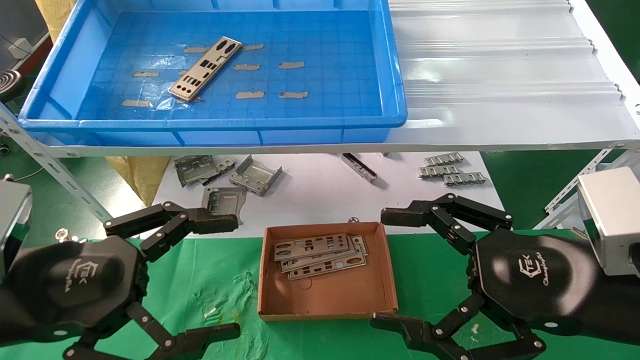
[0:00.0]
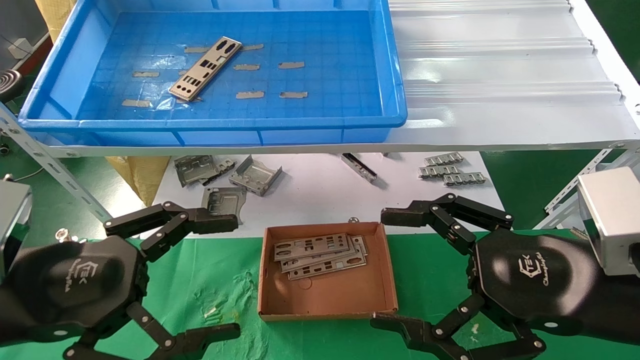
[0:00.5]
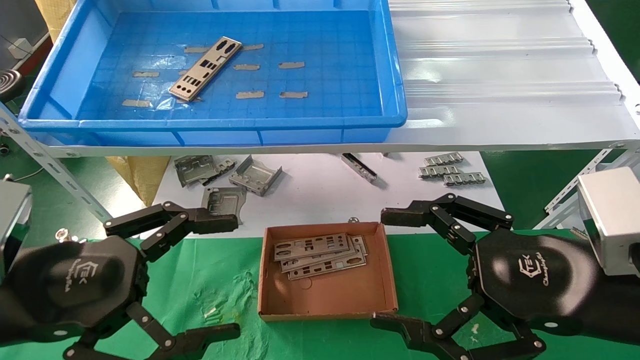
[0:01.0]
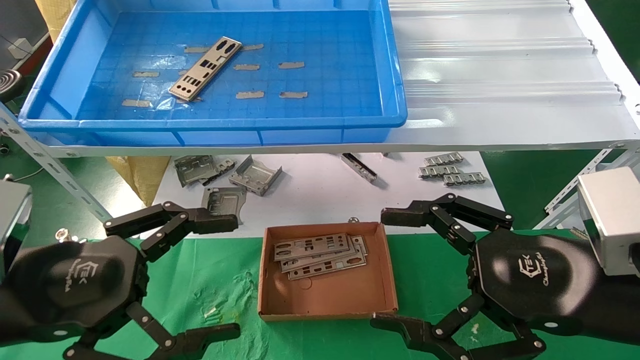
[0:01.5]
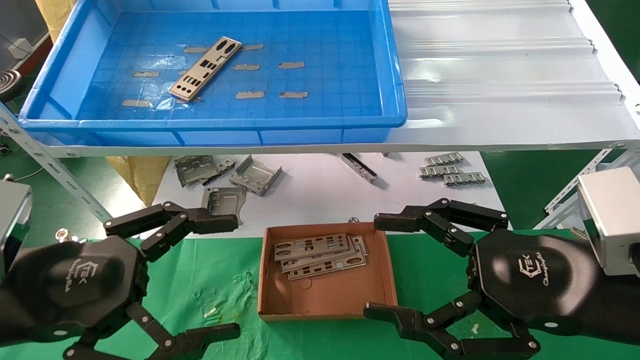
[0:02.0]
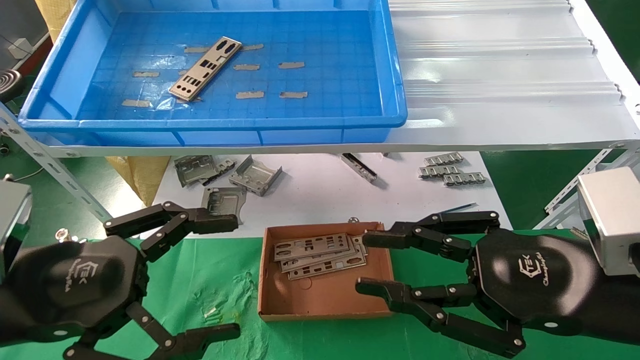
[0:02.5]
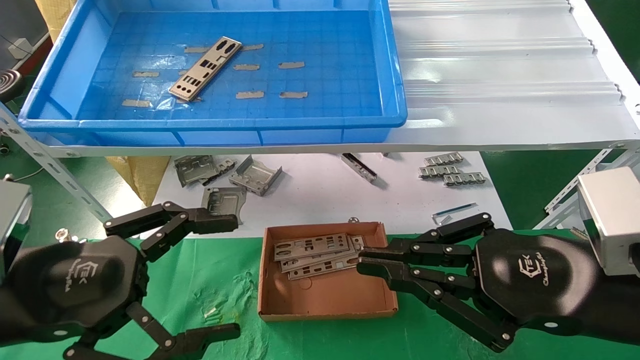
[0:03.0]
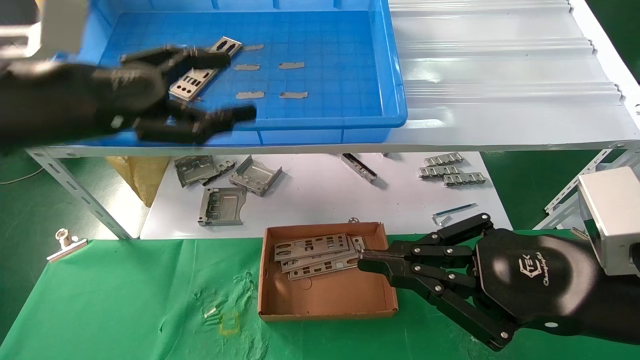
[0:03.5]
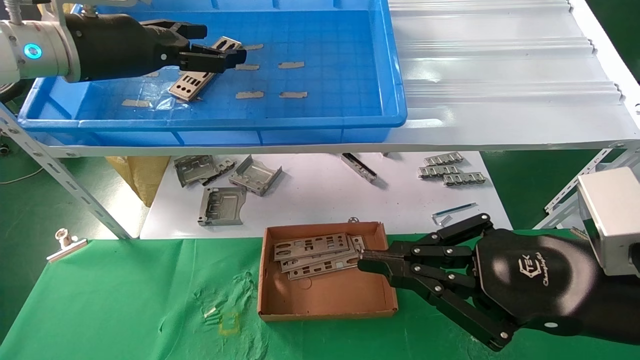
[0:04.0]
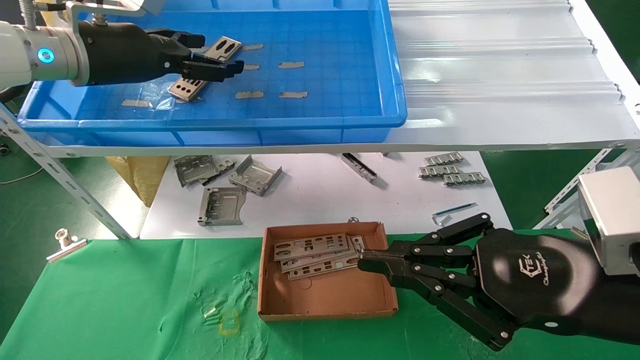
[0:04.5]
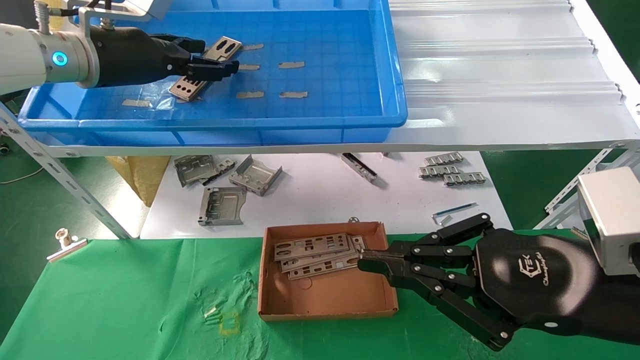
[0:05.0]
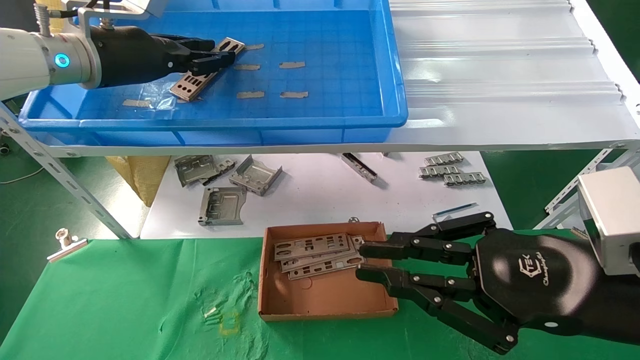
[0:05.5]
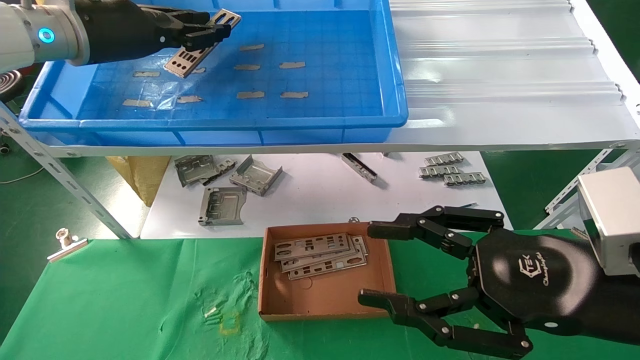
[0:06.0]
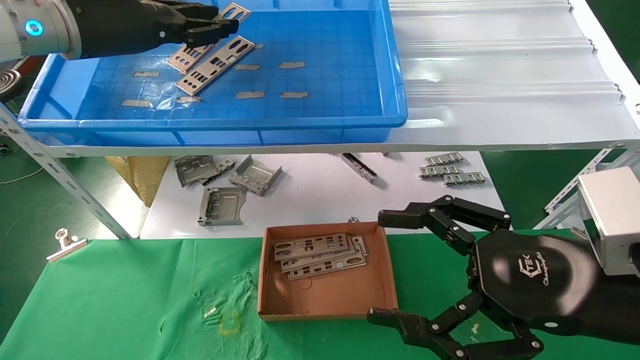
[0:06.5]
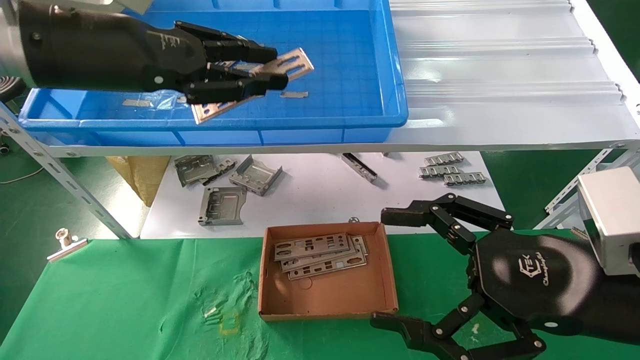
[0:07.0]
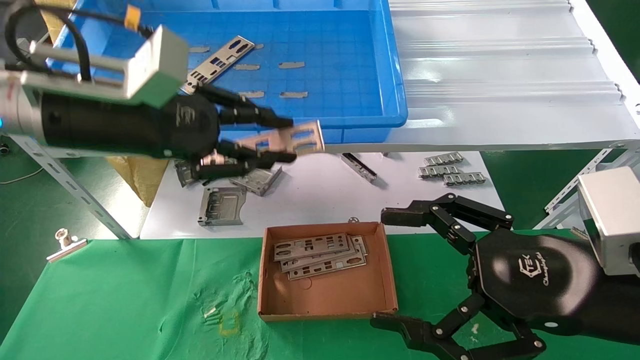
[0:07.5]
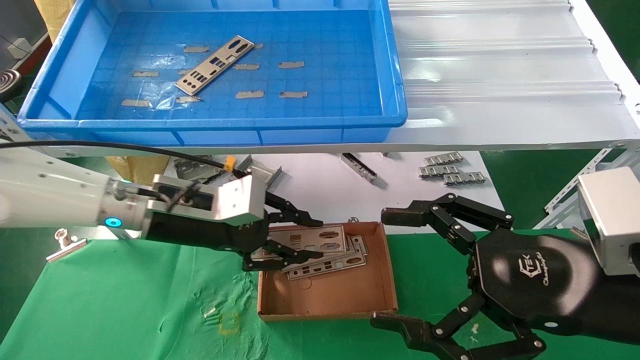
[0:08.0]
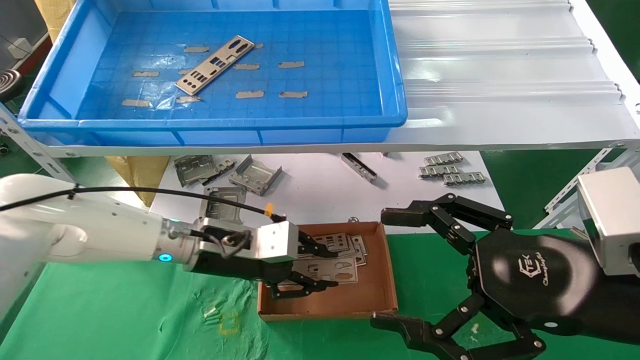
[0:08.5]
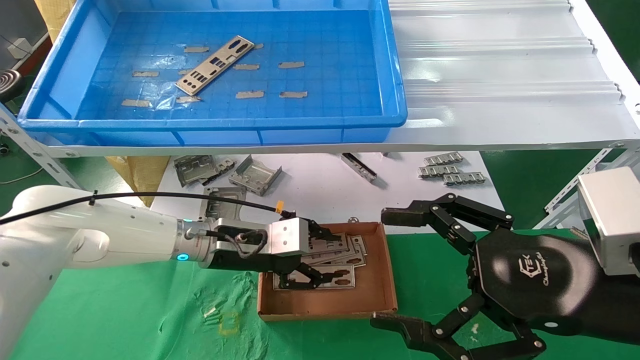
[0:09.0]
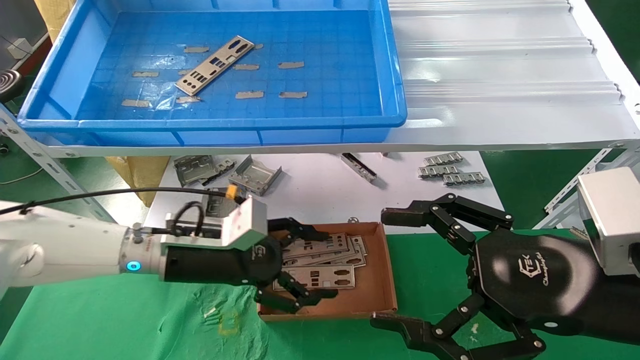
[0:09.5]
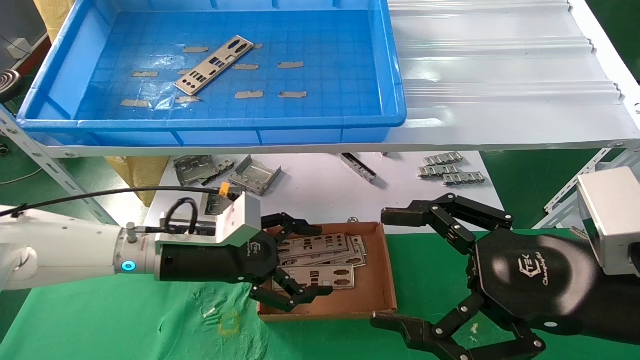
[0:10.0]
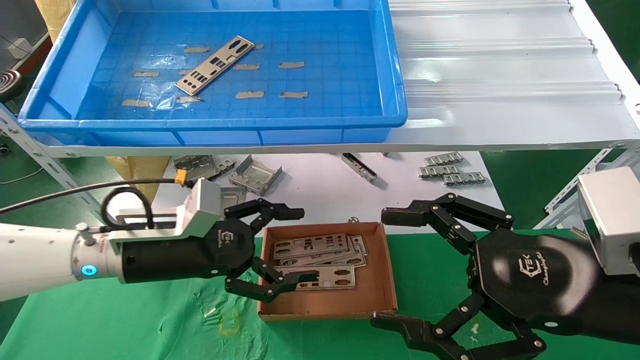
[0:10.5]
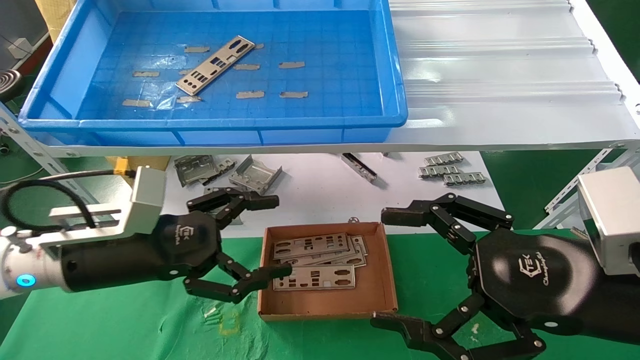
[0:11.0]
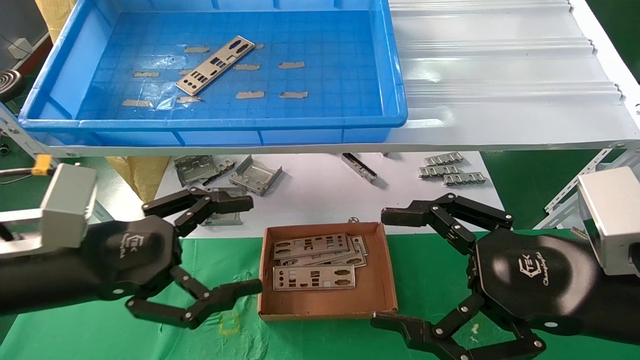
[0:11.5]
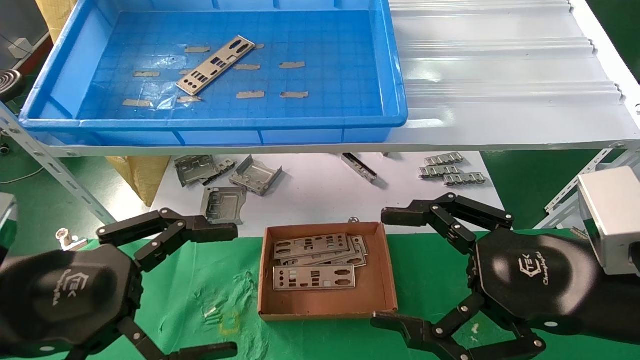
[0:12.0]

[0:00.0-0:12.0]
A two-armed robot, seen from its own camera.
Task of the whole recording: pick up the parts on the tray and put them in the cardboard box.
Step, 0:03.5 to 0:05.5: Pick up the IO bracket from the container box.
Step, 0:06.0 to 0:08.5: Place the IO bracket into the ingredient slot.
0:00.0 to 0:02.0: Both grippers stay about where they are.
0:02.0 to 0:04.0: The right gripper closes. The left gripper heads forward and upward, covering roughly 25 cm.
0:04.0 to 0:06.0: The left gripper closes up; the right gripper opens up.
0:06.0 to 0:08.0: The right gripper opens its fingers, while the left gripper moves downward and to the right, approximately 20 cm.
0:08.0 to 0:10.0: The left gripper shifts about 5 cm downward, and opens its fingers.
0:10.0 to 0:12.0: The left gripper shifts about 20 cm backward and to the left.

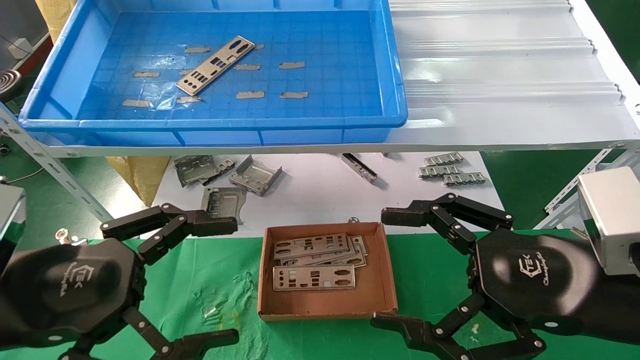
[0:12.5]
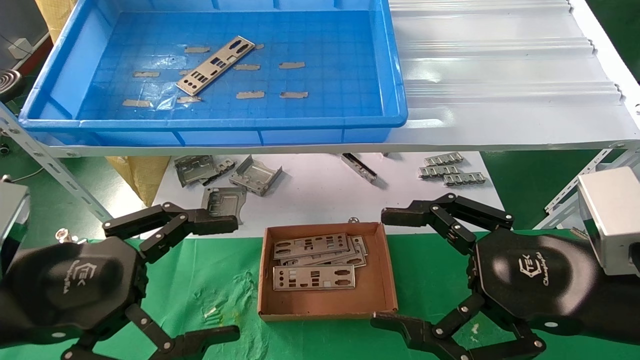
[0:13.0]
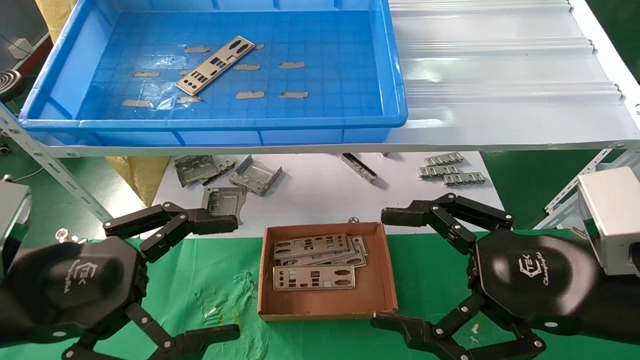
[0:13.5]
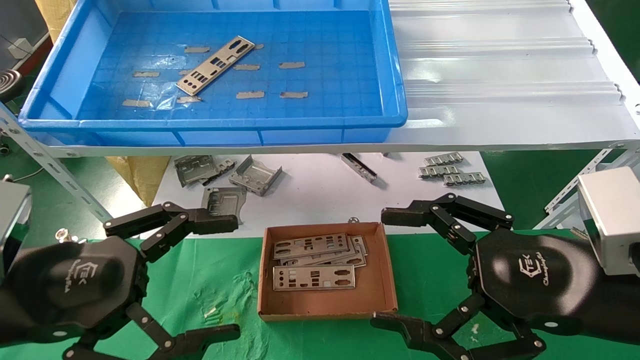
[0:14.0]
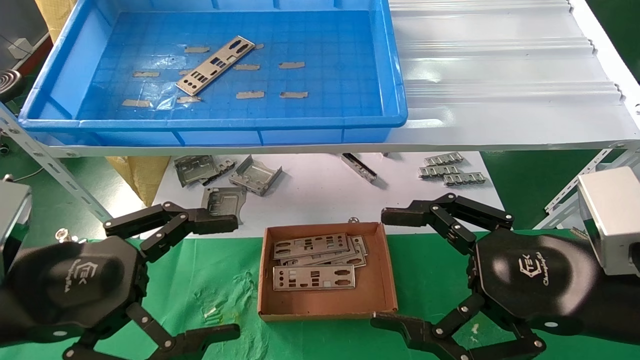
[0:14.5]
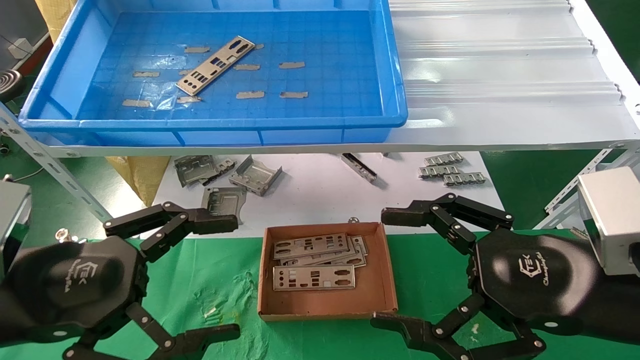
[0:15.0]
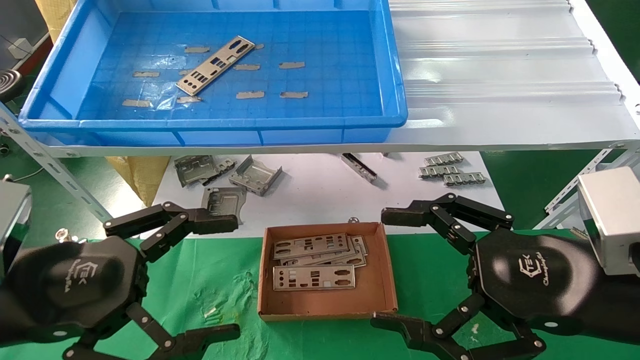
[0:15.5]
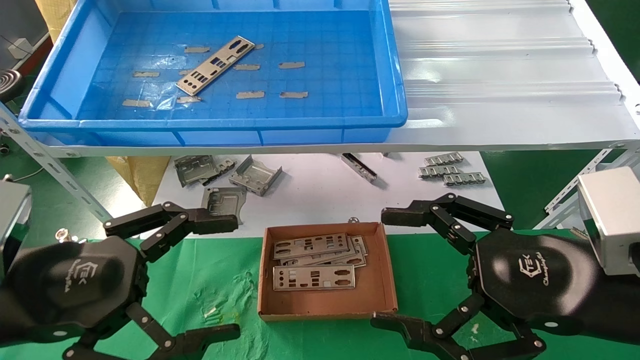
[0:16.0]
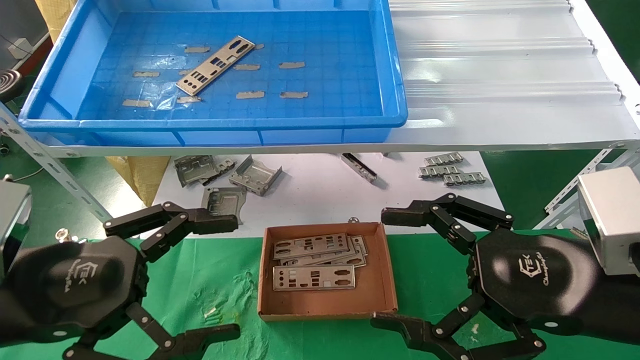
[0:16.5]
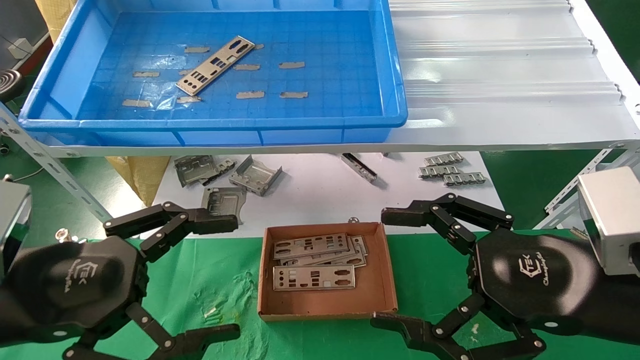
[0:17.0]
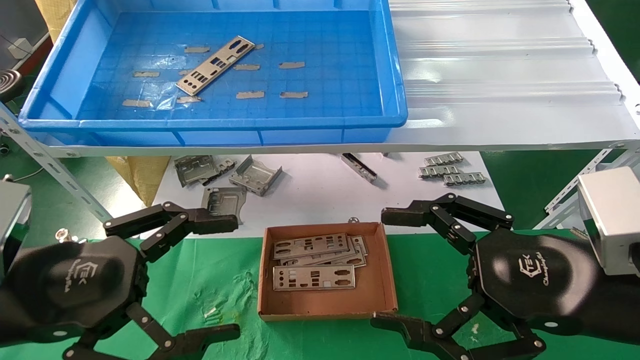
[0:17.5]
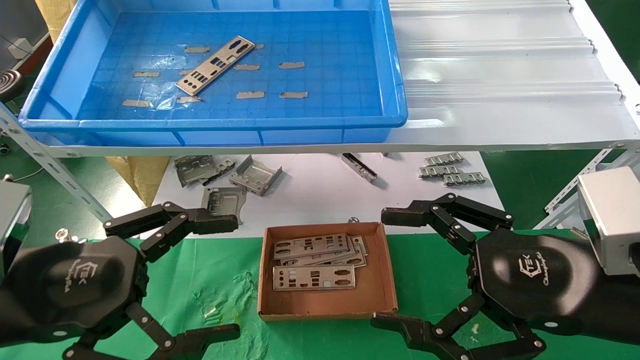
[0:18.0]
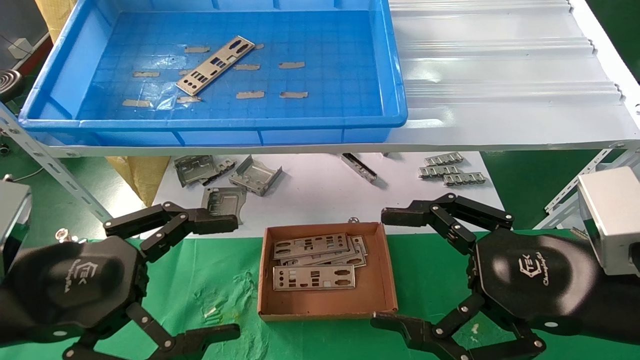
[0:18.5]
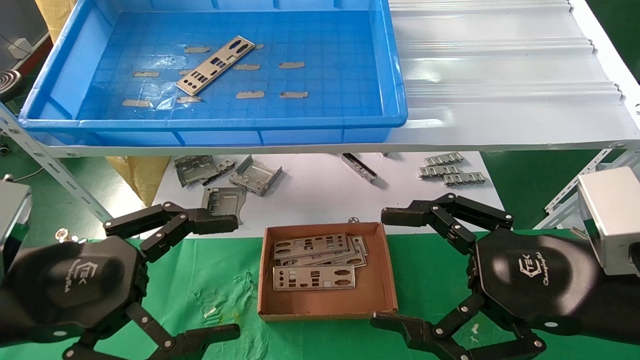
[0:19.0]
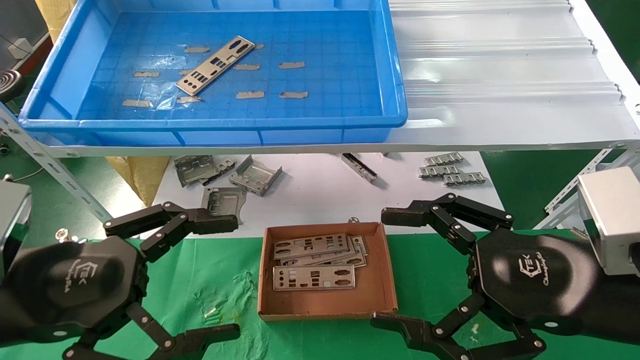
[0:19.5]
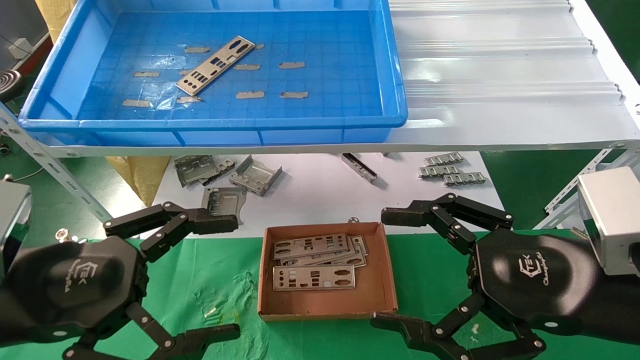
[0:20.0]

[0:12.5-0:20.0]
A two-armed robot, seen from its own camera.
Task of the whole recording: pick up the parts on the tray and put them in the cardboard box.
0:12.5 to 0:20.0: Both grippers stay put.
